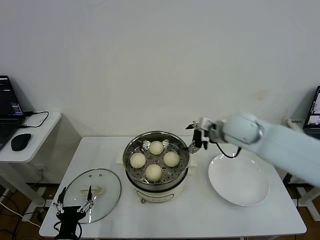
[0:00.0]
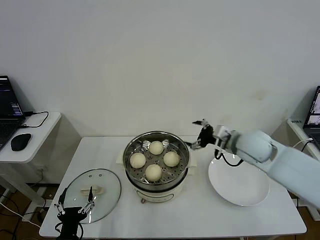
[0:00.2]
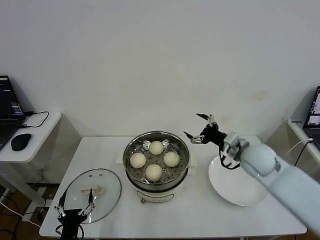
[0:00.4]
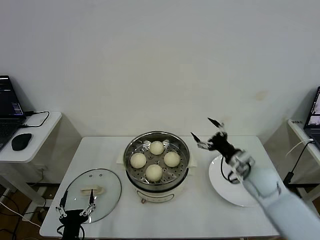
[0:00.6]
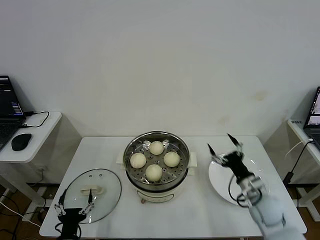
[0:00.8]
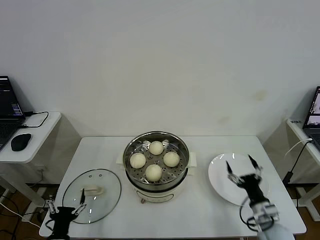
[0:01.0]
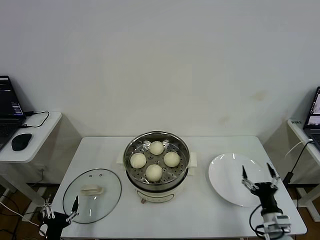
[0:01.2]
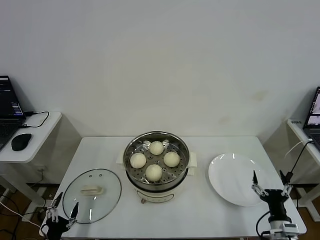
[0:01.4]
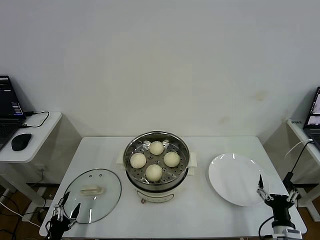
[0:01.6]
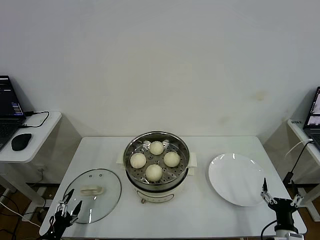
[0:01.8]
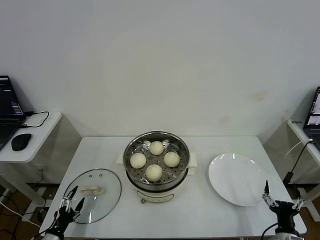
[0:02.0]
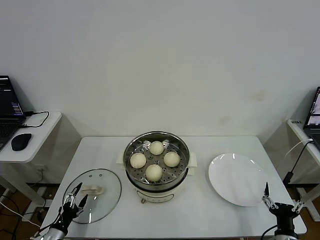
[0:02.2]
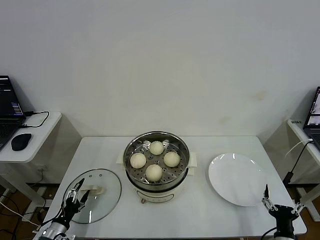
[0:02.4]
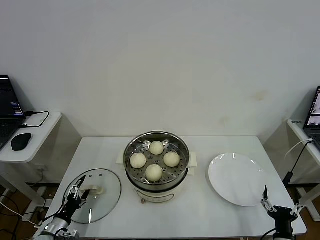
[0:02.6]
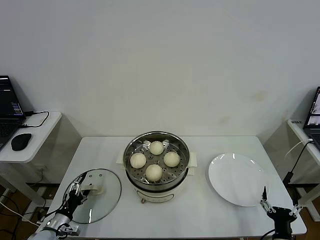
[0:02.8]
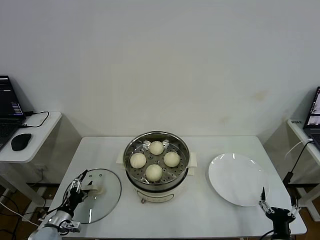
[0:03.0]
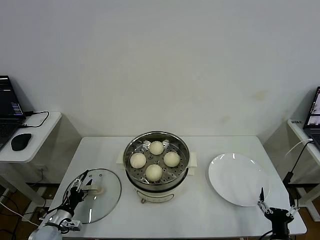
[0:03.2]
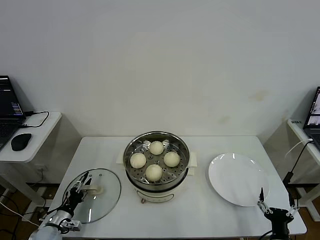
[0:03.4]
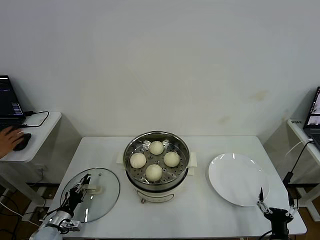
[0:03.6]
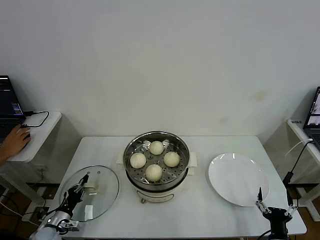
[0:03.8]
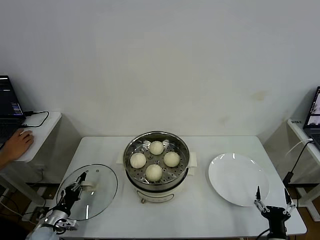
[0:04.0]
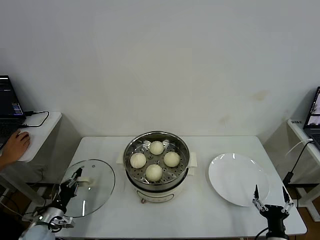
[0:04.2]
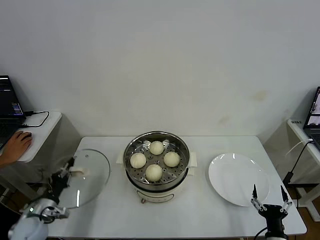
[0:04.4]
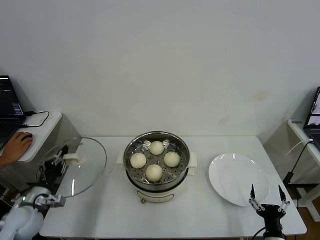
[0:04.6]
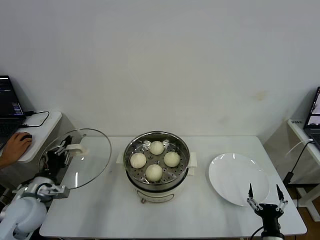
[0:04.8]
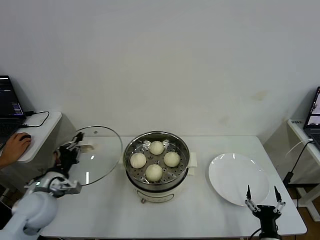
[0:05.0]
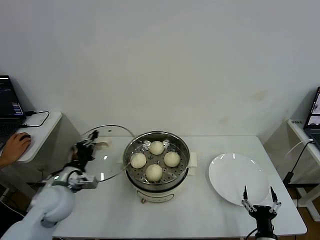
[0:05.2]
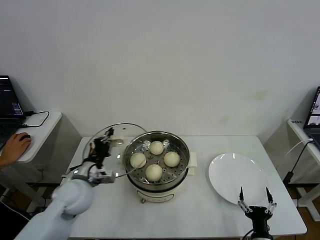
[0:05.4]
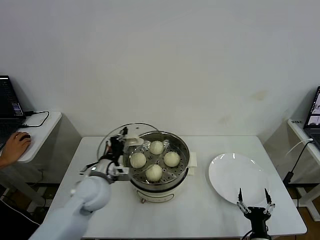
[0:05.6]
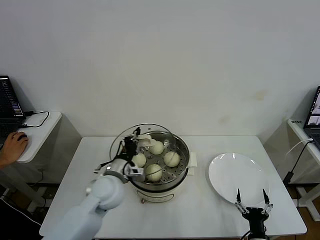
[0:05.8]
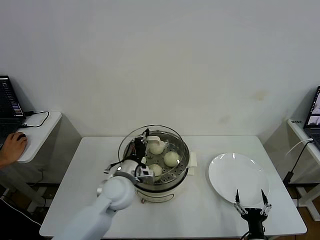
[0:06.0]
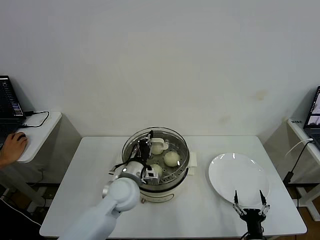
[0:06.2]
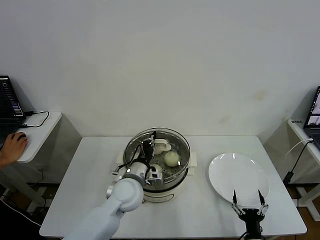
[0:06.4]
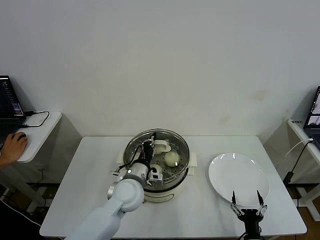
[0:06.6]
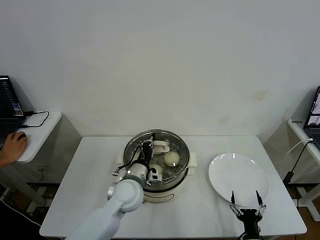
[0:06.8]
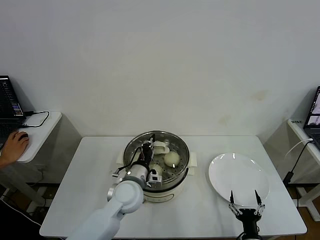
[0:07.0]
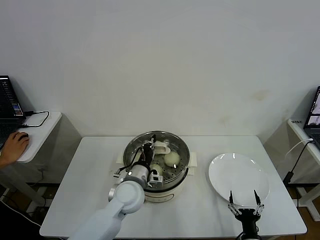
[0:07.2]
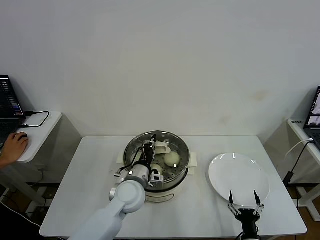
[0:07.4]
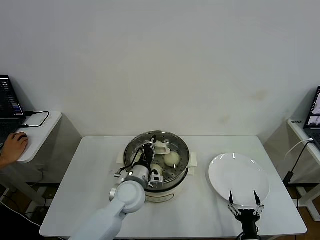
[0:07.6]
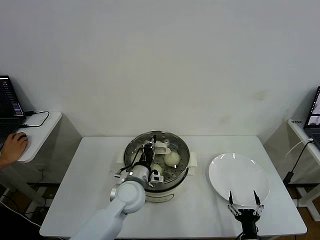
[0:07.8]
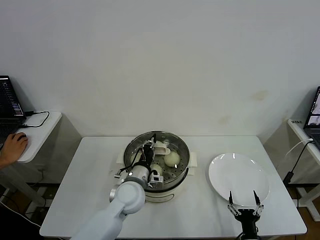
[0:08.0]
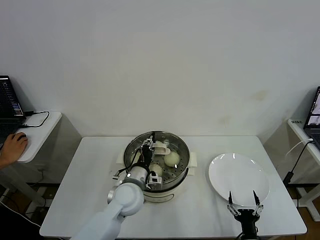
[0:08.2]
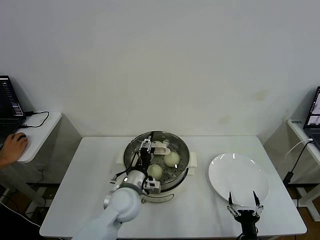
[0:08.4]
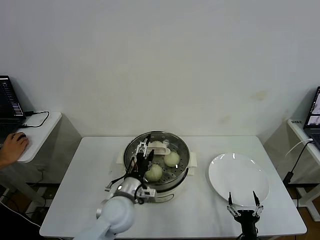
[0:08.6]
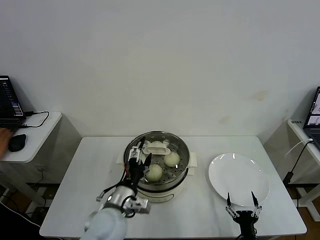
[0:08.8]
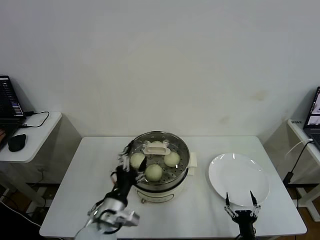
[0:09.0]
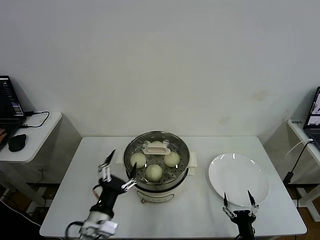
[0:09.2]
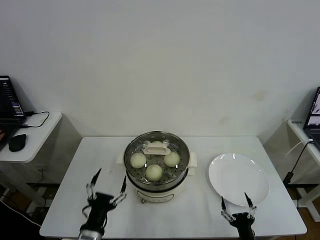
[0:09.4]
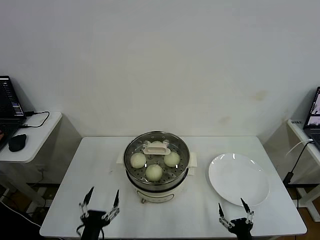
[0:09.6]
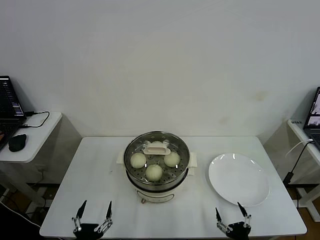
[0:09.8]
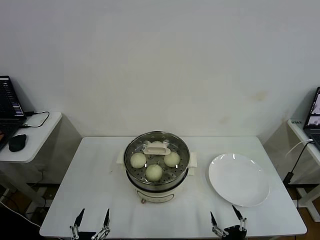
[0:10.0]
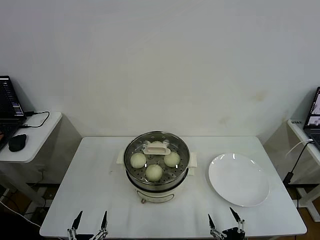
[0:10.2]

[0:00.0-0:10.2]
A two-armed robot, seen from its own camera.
Task of the whole recording: take steamed baozi put them in steamer then cover it.
Step, 0:00.0 to 0:04.0: Grasp the pot lid with left gripper.
Step, 0:04.2 to 0:08.6: Place the pot lid on the steamer with left gripper.
0:00.0 to 0:01.4: The right gripper travels downward, backward and to the right by roughly 40 cm, while the left gripper shifts roughly 10 cm to the left and downward.
0:01.4 to 0:03.0: The left gripper heads forward, covering roughly 15 cm. The right gripper moves backward, approximately 5 cm.
0:03.0 to 0:04.4: The left gripper travels upward by some 5 cm, and closes its fingers.
0:04.4 to 0:05.8: The left gripper heads to the right and upward, covering roughly 30 cm. The right gripper moves approximately 5 cm.
0:05.8 to 0:07.2: The left gripper travels to the right by some 5 cm.
0:07.2 to 0:08.8: The left gripper heads backward, covering about 10 cm, and opens.
0:08.8 to 0:10.2: The left gripper travels backward, downward and to the left by some 25 cm, while the right gripper moves backward, about 5 cm.
